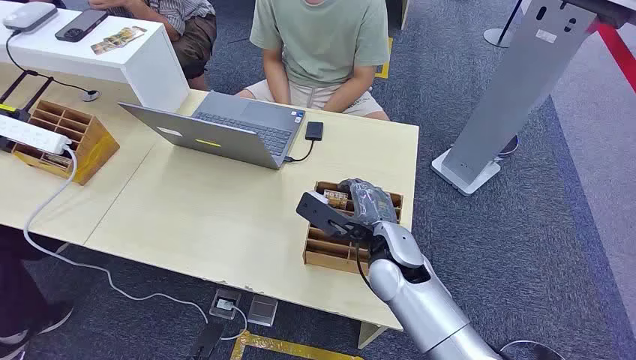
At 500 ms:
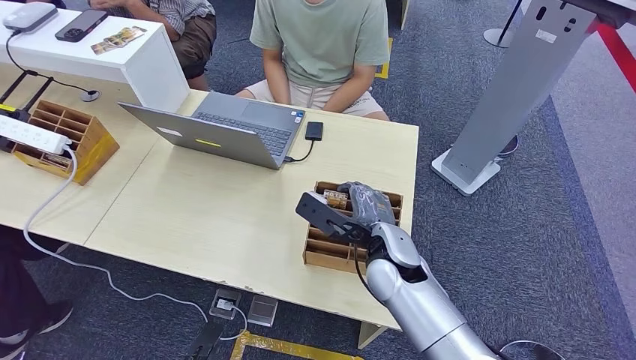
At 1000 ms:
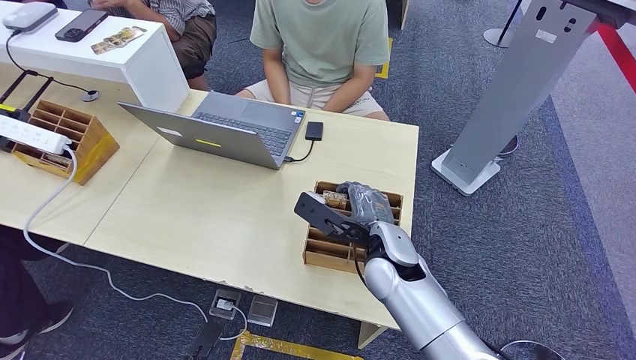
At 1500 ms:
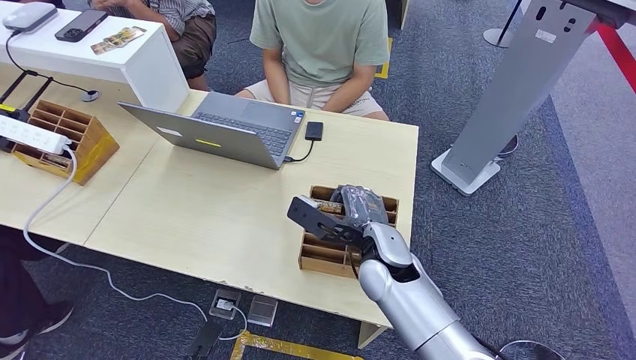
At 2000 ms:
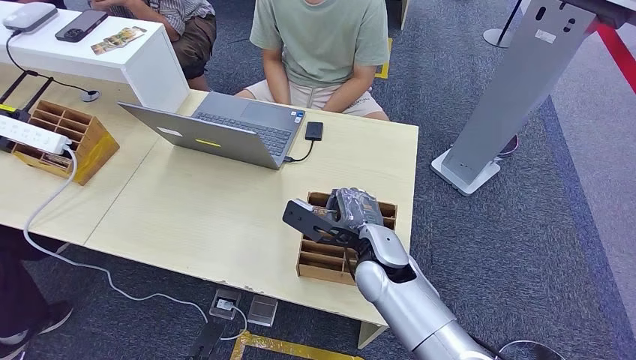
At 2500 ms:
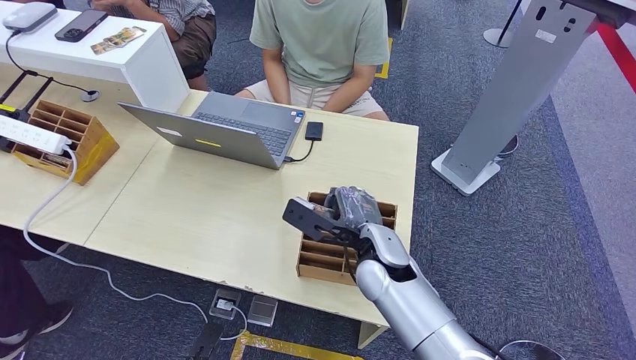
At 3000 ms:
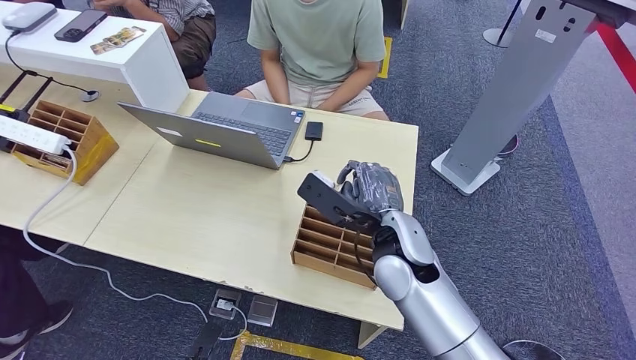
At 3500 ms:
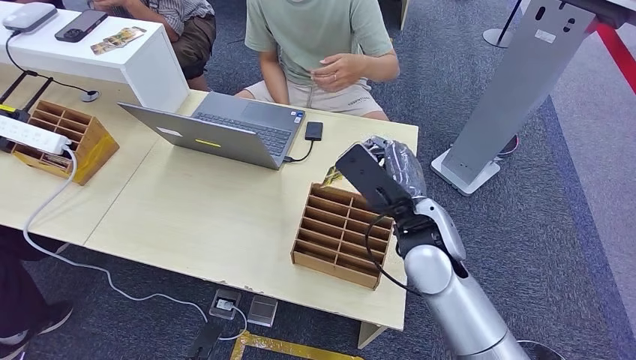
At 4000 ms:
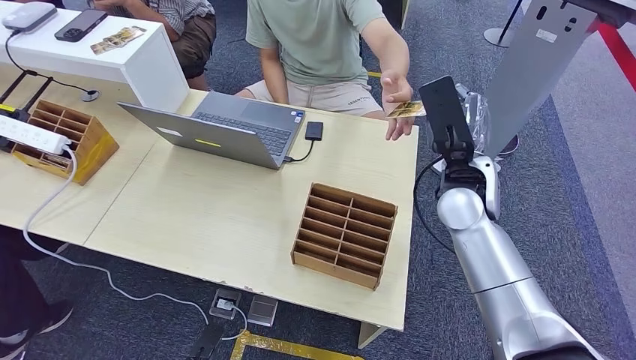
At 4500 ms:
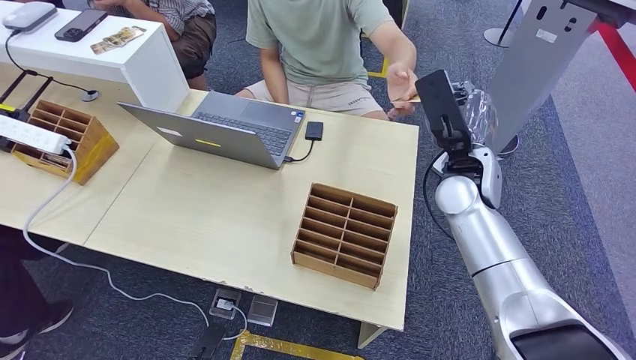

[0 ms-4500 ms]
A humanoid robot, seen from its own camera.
Step, 0 ms to 3000 ms: Pick up the room card from the card holder.
Step, 4000 ms to 4500 ms: Hand the room card to the target.
2000 ms to 4500 ms: The right hand goes about 20 cm upward, to the right and forward.
